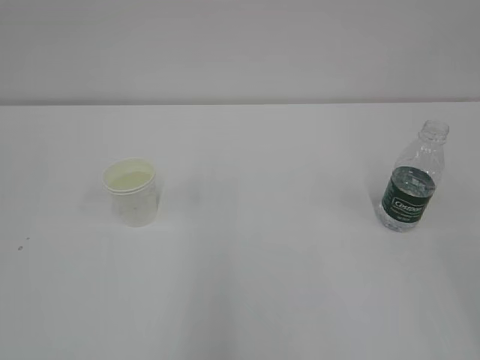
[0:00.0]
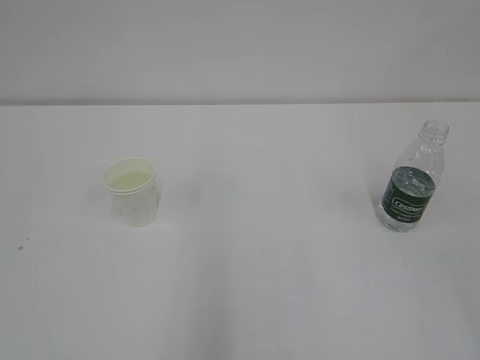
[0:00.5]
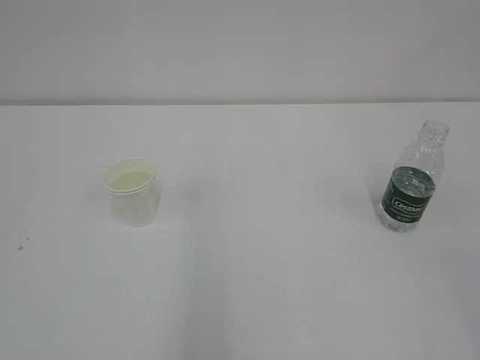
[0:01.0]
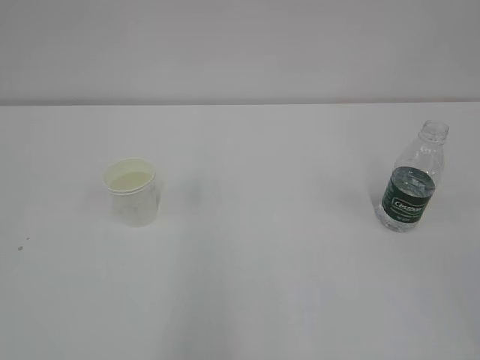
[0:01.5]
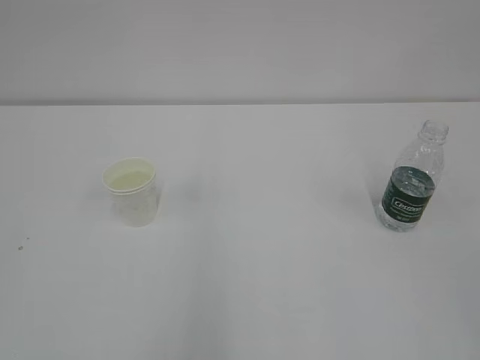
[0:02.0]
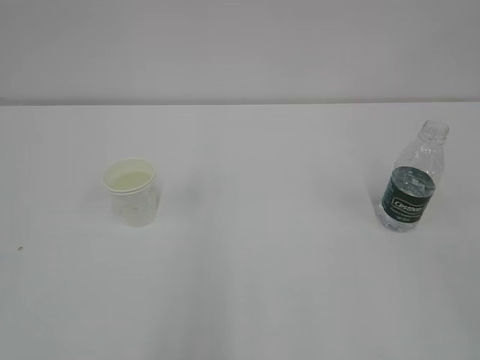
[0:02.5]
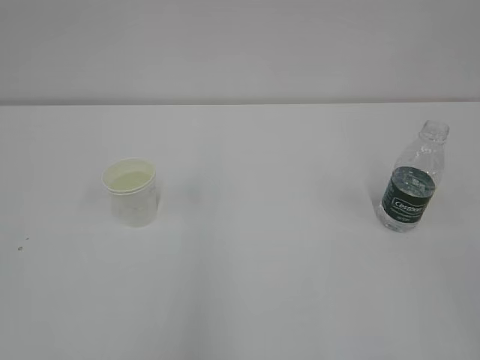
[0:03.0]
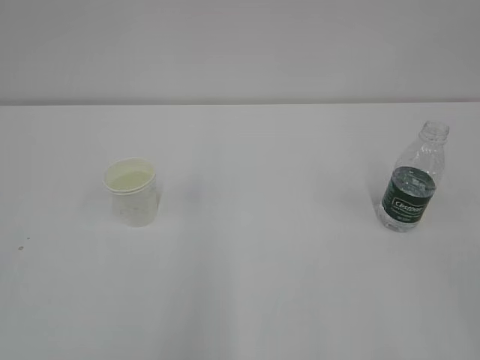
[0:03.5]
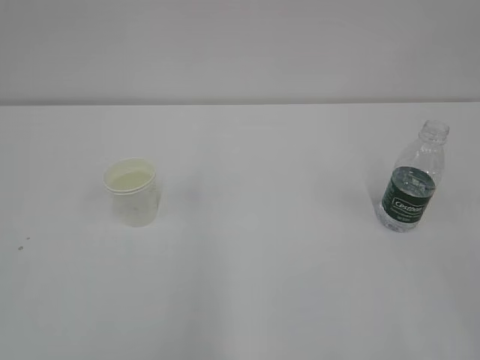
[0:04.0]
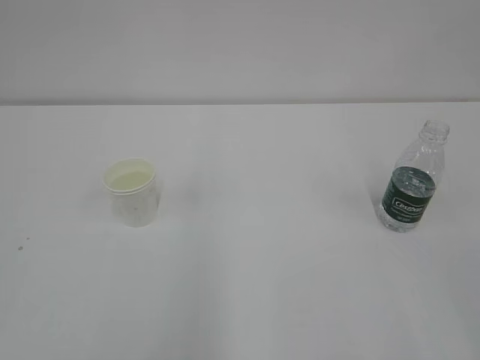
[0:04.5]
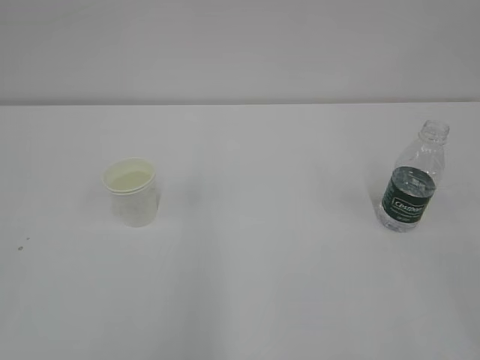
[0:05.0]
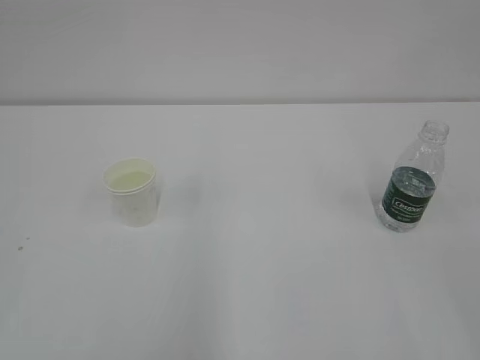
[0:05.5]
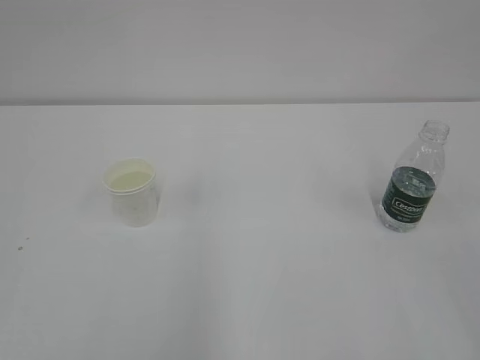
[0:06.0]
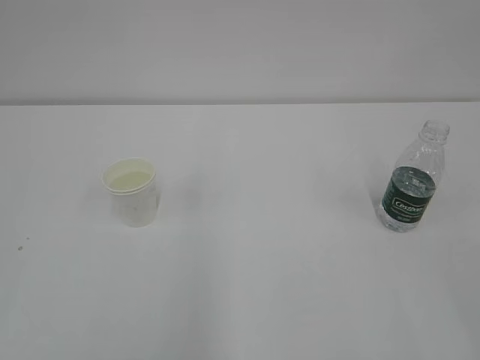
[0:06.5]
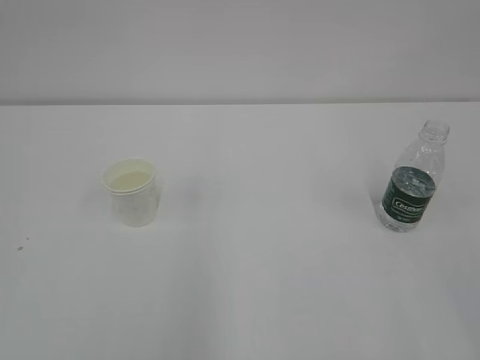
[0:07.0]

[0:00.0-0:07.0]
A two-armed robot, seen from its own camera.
0:05.0 to 0:07.0: Neither gripper changes place.
